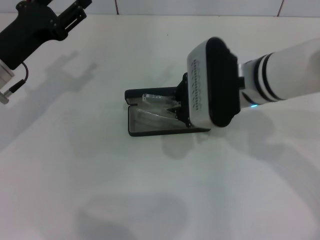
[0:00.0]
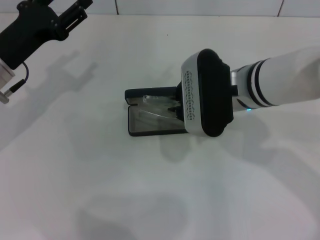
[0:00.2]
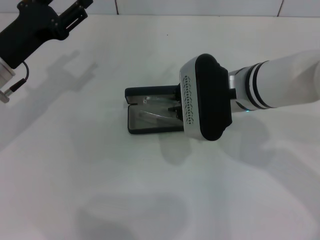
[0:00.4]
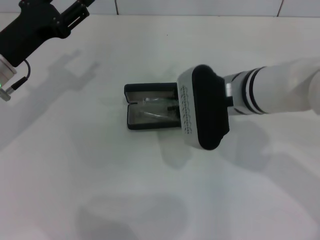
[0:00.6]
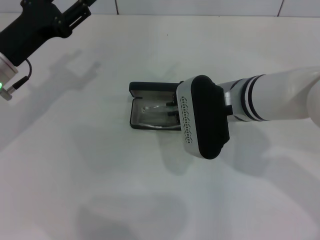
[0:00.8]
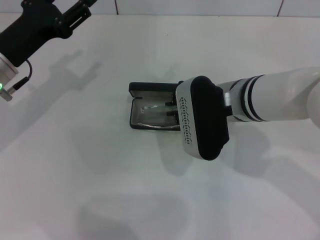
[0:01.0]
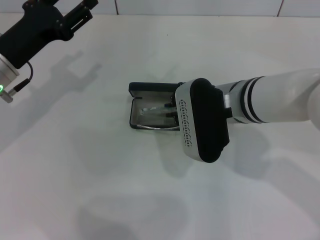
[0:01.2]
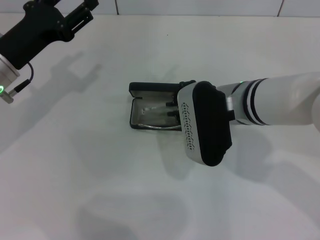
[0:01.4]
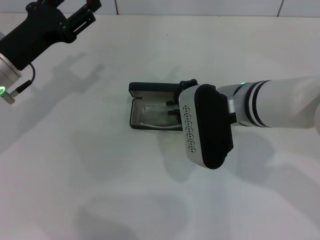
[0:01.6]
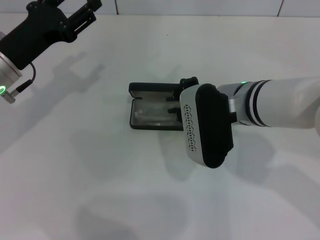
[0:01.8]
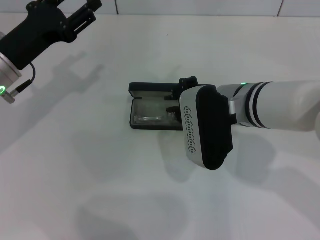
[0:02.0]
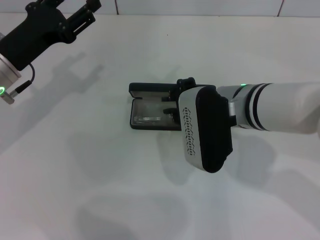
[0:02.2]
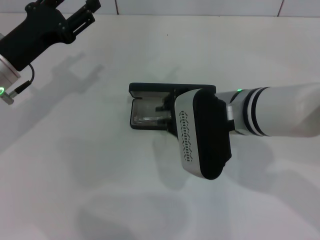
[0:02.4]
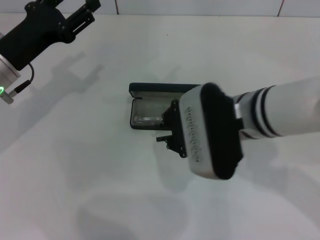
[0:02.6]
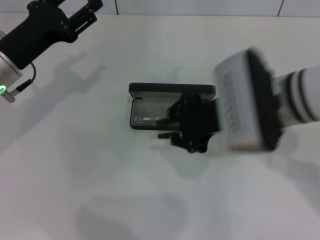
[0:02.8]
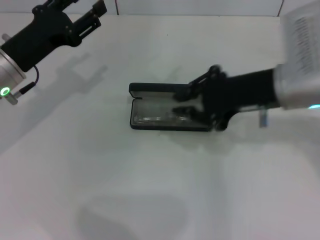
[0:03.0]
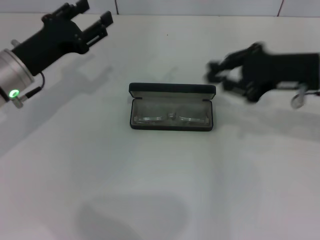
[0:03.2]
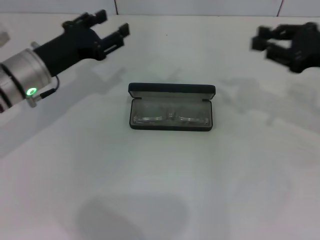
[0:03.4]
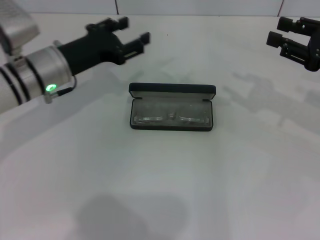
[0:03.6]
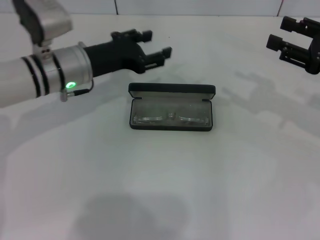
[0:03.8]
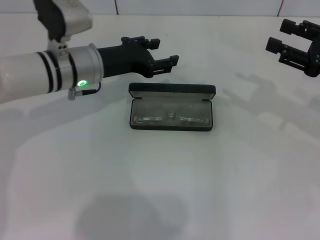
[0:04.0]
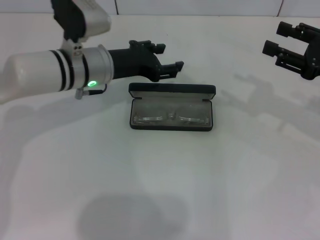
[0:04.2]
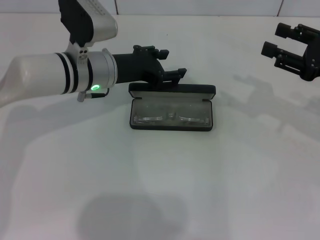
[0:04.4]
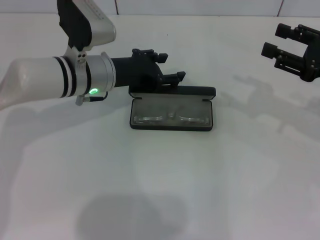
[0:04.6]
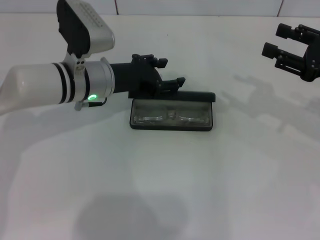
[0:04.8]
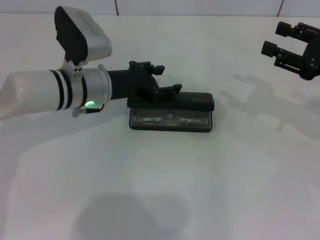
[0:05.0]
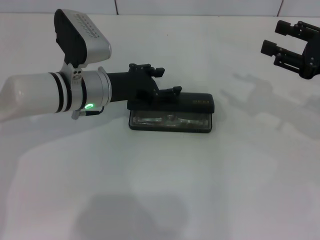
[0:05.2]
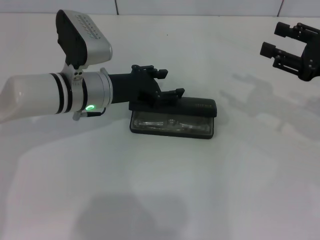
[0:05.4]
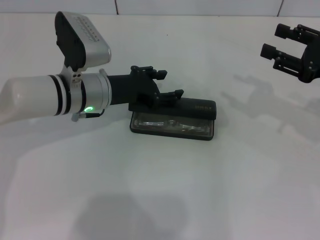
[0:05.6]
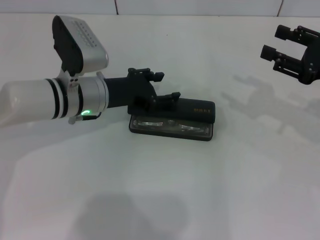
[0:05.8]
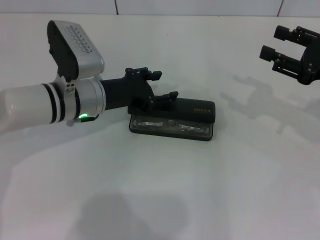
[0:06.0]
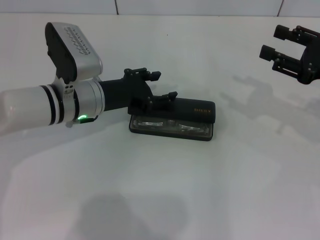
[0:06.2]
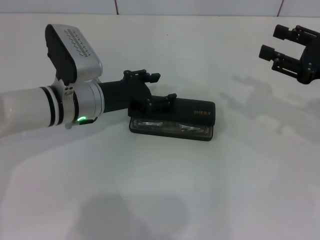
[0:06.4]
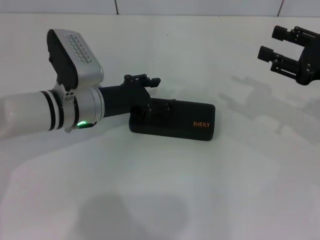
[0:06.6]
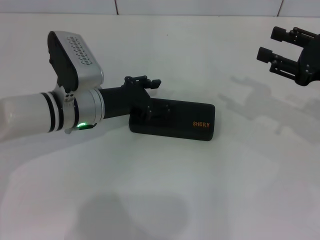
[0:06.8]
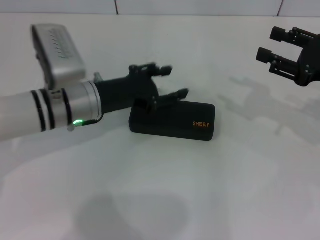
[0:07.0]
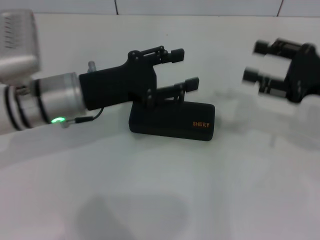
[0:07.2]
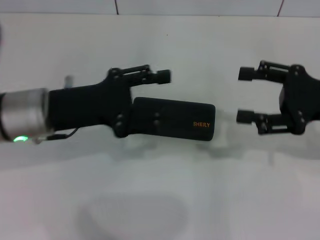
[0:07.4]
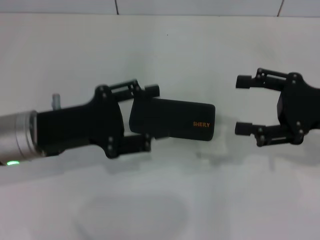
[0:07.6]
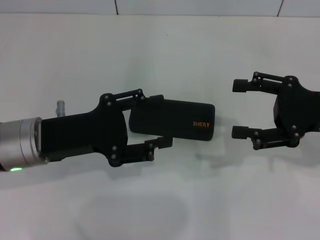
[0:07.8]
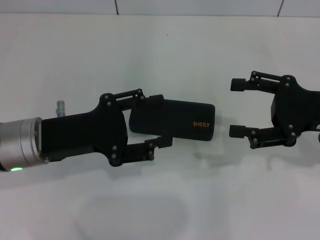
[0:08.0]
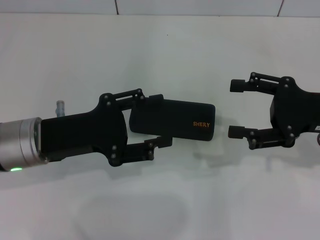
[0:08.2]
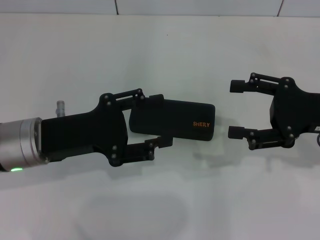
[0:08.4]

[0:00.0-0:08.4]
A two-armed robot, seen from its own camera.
Step, 0:00.0 to 0:02.0: Put the glasses into the case with your right hand.
Step, 0:02.2 to 0:06.6: Close the glasses case with your left hand.
0:00.0 to 0:01.4: The grippers make only small movements.
0:01.4 to 0:02.8: The right gripper ends up about 5 cm from where it was.
0:02.8 to 0:04.2: The right gripper goes some 20 cm to the right, and opens; the left gripper travels to the right and forward by approximately 10 cm.
0:04.2 to 0:07.0: The grippers move only a little.
0:07.0 to 0:08.4: The left gripper is displaced backward and to the left by roughly 10 cm.

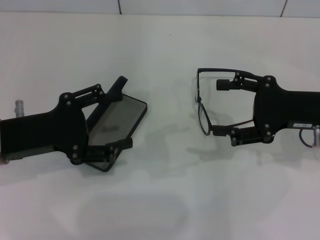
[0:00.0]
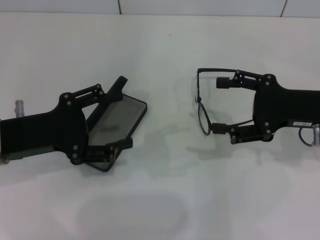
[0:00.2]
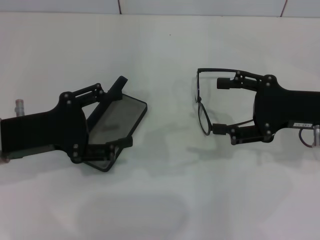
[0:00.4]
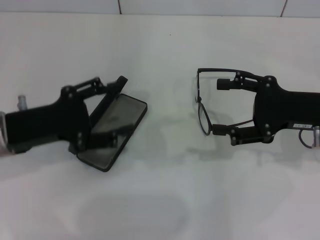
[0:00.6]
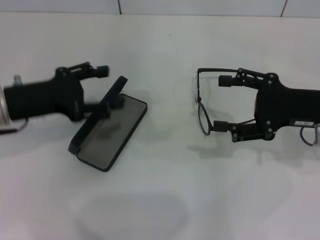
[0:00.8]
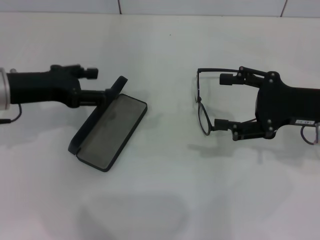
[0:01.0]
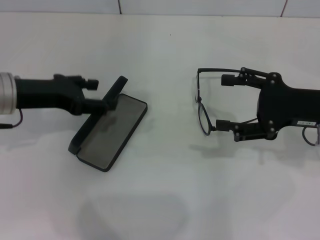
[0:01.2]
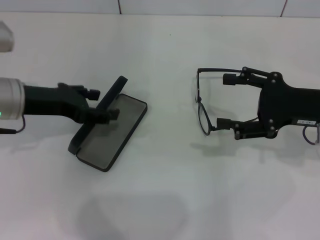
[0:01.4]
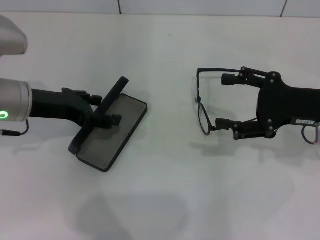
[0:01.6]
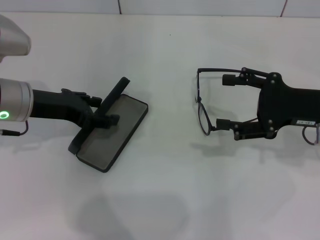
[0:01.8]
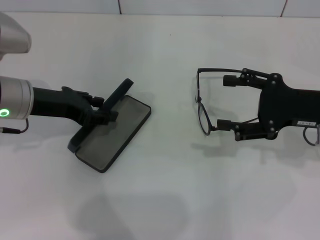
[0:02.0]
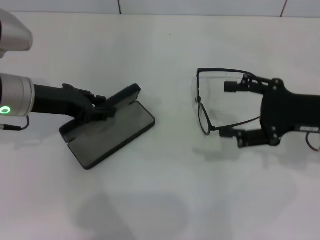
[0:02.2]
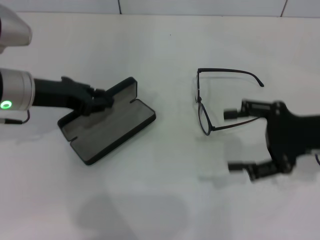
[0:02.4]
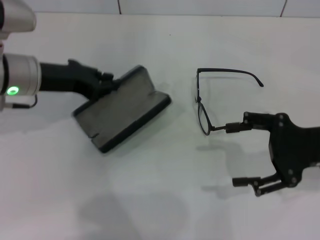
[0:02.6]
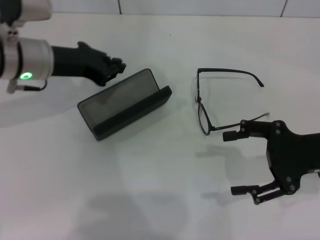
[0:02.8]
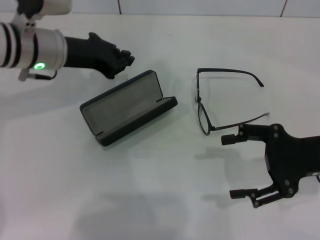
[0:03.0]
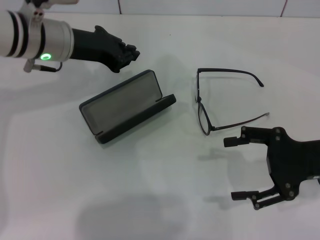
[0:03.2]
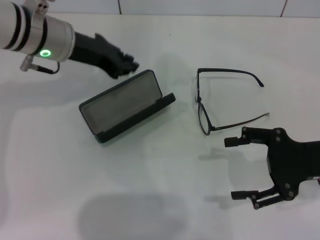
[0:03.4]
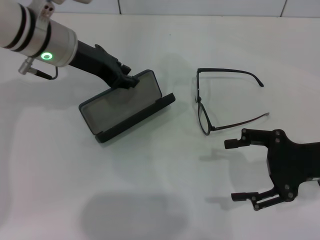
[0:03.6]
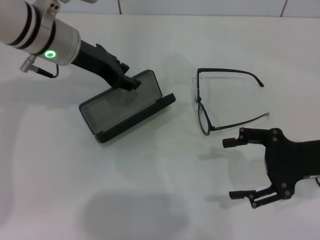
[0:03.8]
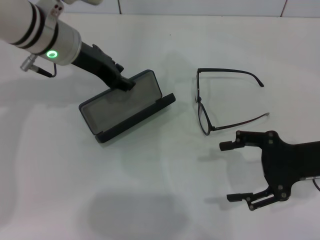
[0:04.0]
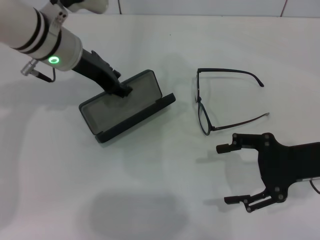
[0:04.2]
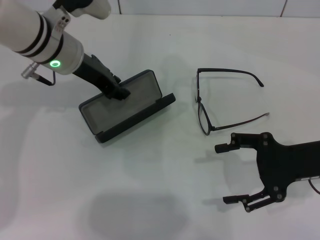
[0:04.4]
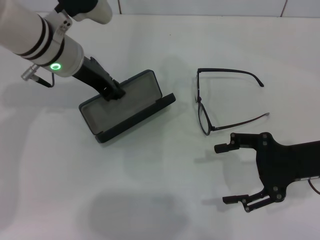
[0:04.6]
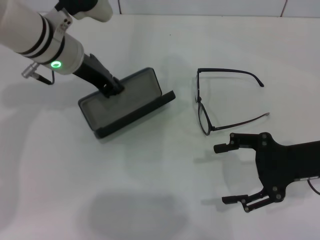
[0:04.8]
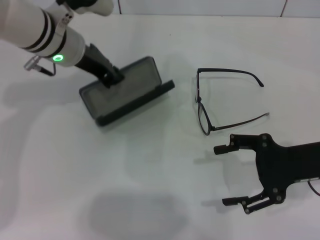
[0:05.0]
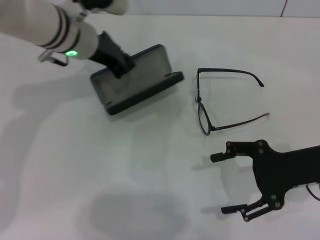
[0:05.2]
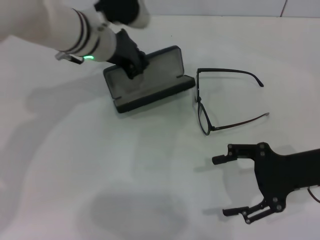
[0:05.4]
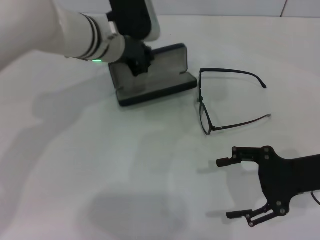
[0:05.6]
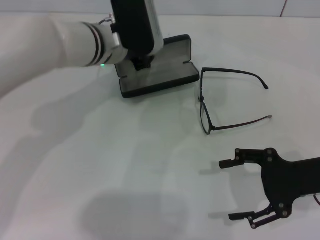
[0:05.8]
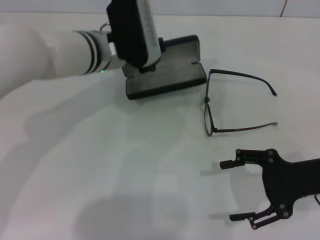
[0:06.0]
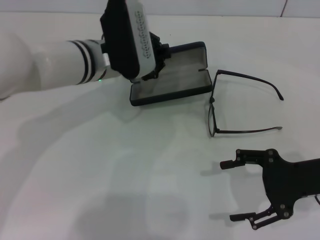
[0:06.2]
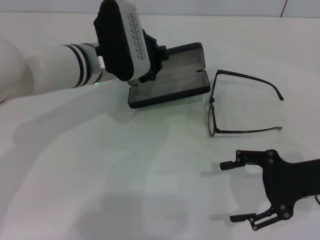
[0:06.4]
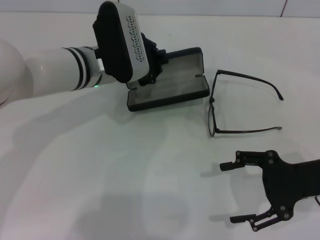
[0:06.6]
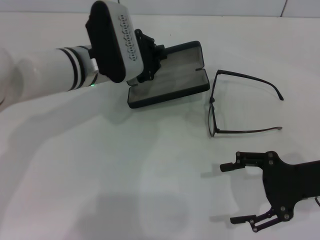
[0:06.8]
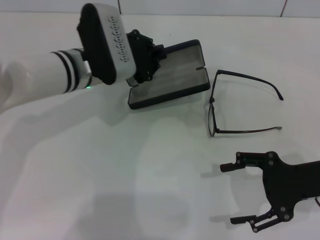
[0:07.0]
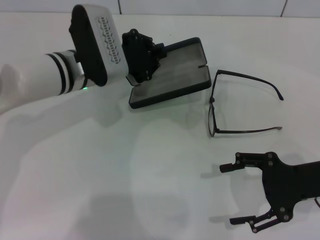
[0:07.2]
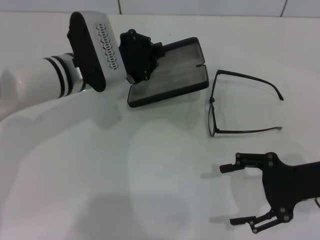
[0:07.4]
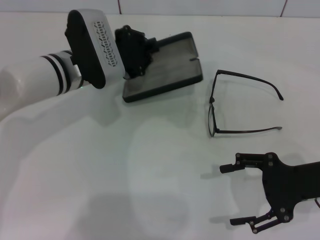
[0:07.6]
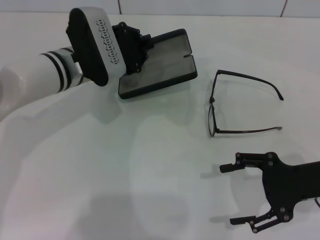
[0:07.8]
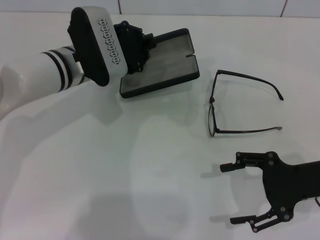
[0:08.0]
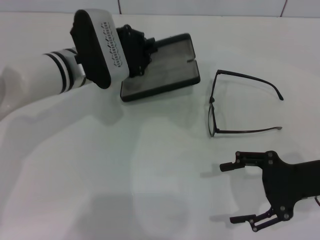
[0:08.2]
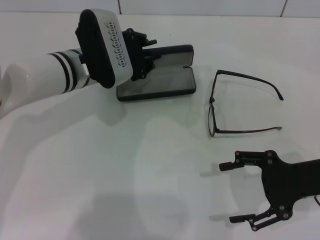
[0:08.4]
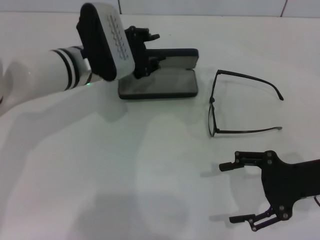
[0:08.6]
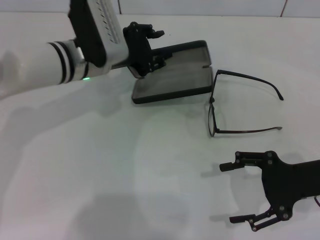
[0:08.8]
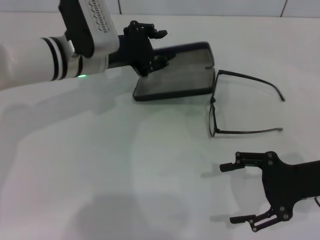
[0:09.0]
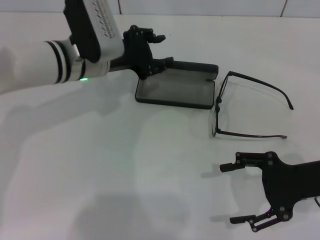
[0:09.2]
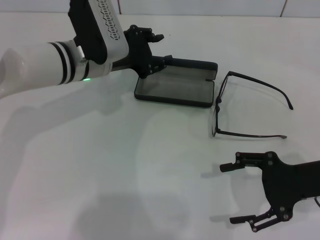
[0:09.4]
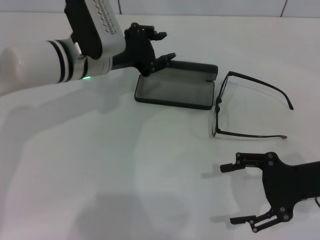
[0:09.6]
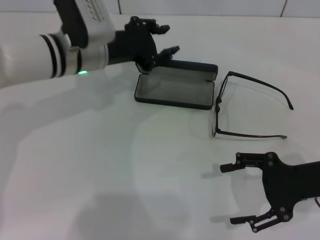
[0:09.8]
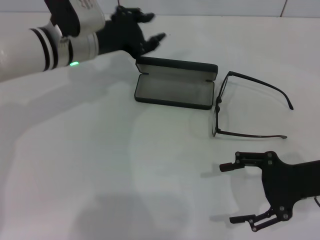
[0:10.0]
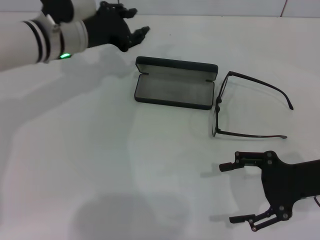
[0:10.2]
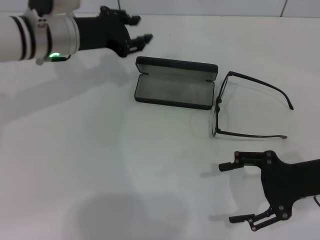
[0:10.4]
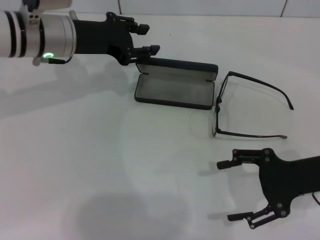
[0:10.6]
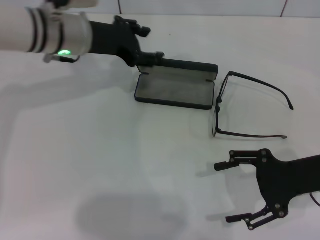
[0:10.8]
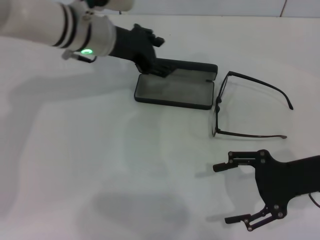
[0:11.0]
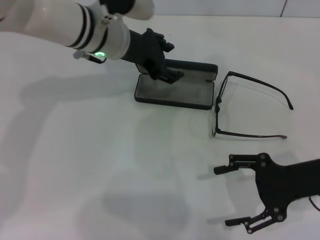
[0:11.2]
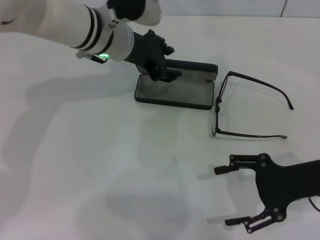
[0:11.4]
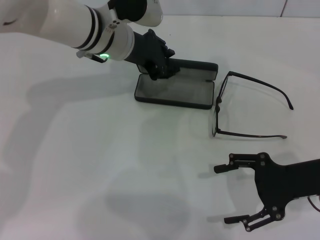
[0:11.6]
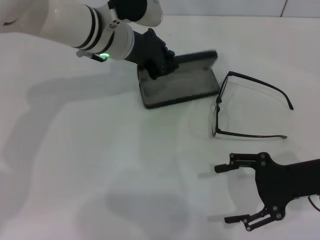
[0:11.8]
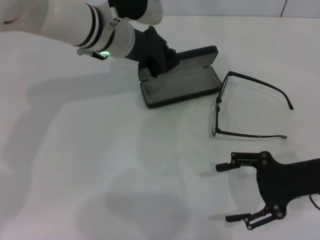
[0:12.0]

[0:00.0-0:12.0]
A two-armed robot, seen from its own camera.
Step, 0:00.0 to 0:02.0: Grab the glasses case with your left hand.
0:00.0 to 0:01.6: The left gripper goes some 5 cm forward.
0:01.6 to 0:03.0: The left gripper goes roughly 5 cm forward, and closes its fingers.
0:03.0 to 0:04.4: The left gripper opens.
0:04.4 to 0:06.0: The left gripper shifts some 5 cm to the right, and closes its fingers.
0:06.0 to 0:07.6: The left gripper changes place by about 5 cm.
0:07.6 to 0:09.0: The left gripper opens its fingers.
0:09.0 to 0:10.4: The grippers make only small movements.
0:10.4 to 0:12.0: The left gripper goes approximately 10 cm to the right, and opens, then closes once more.

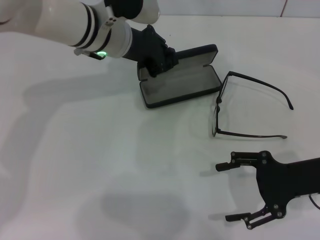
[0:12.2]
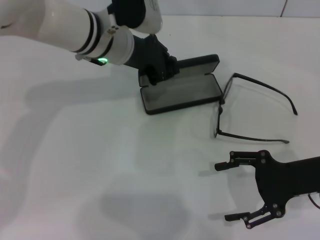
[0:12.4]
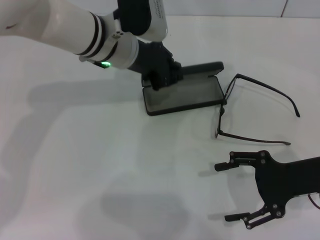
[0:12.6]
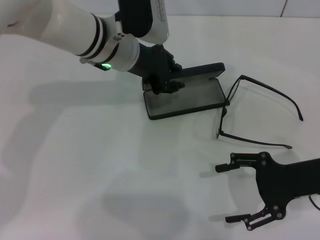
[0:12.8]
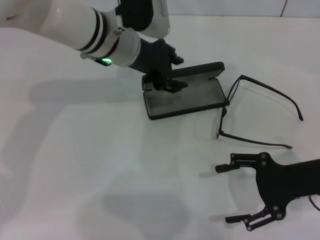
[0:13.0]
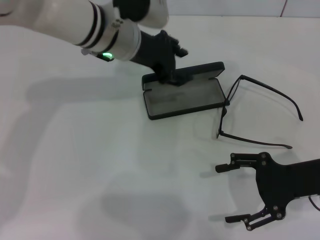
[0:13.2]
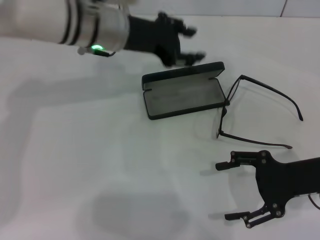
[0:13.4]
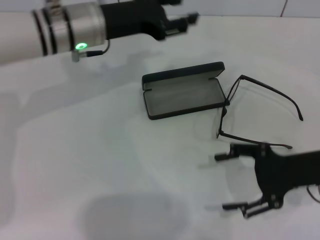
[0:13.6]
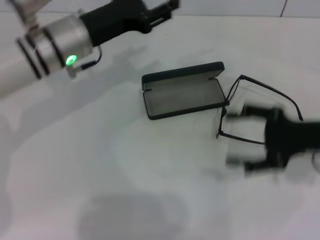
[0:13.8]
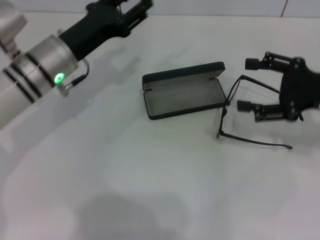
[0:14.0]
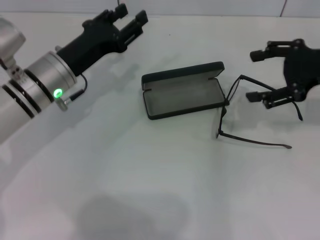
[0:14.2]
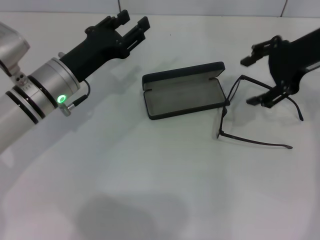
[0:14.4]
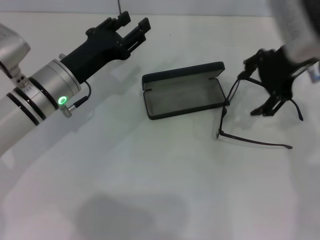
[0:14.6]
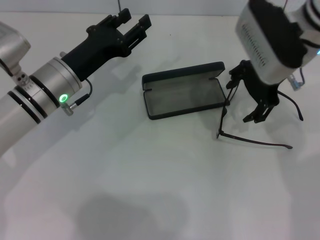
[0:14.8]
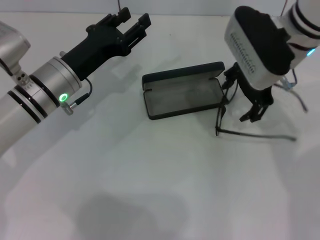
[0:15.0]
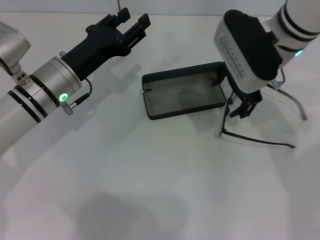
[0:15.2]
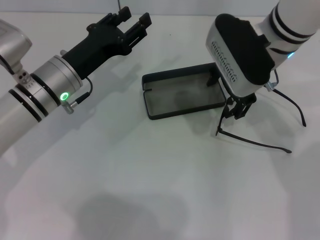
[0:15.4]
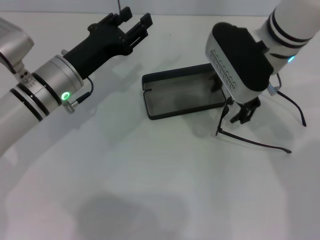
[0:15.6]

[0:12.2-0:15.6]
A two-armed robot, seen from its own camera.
0:12.2 to 0:13.8: The left gripper is displaced to the left by roughly 5 cm, and opens.
0:13.8 to 0:15.6: The left gripper moves roughly 5 cm; the right gripper goes roughly 20 cm to the left, forward and upward.
